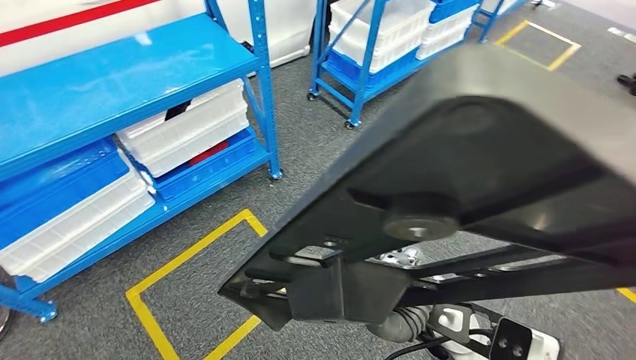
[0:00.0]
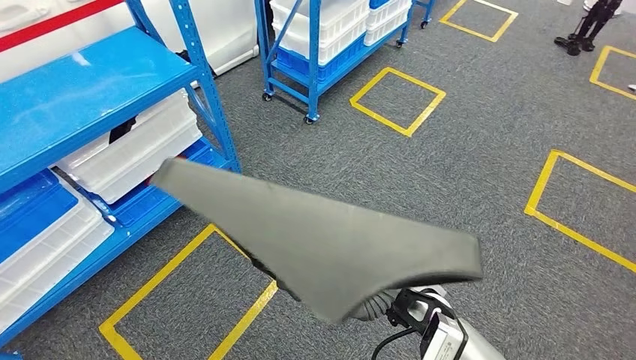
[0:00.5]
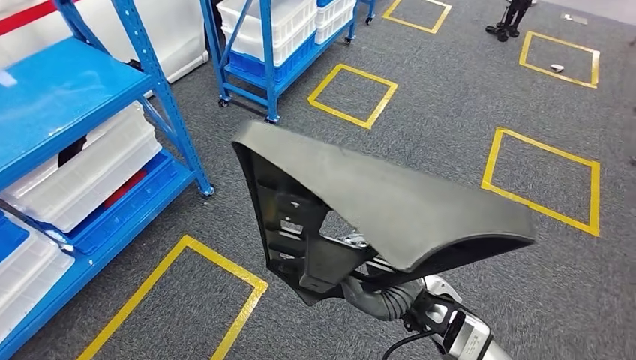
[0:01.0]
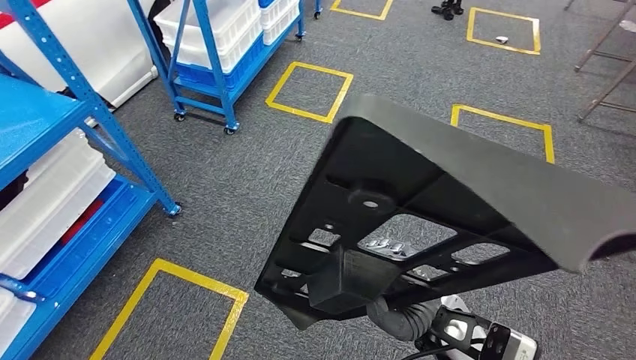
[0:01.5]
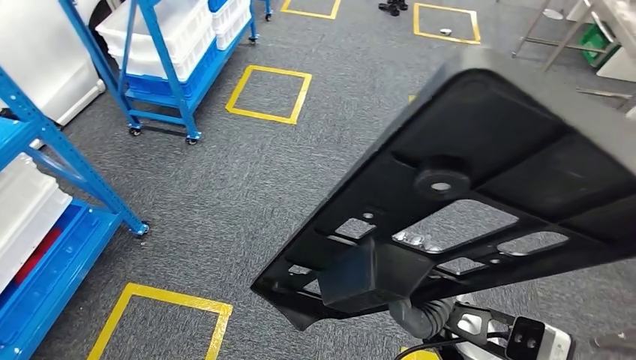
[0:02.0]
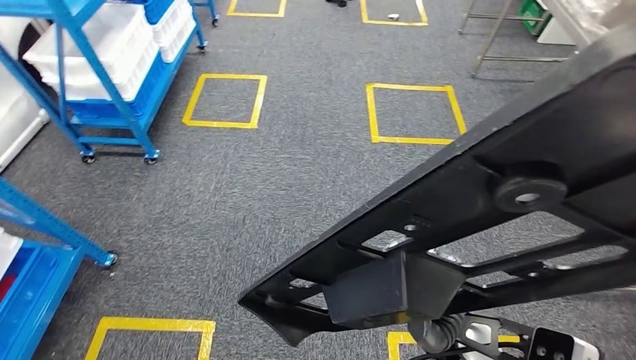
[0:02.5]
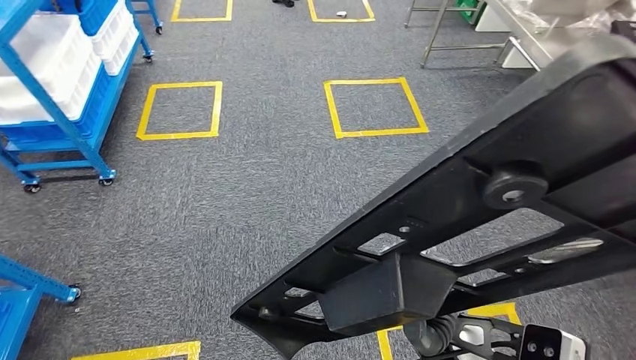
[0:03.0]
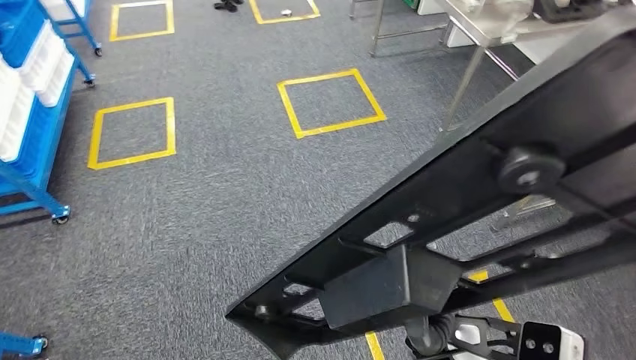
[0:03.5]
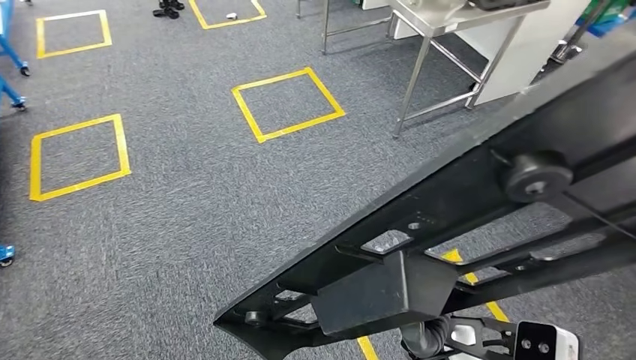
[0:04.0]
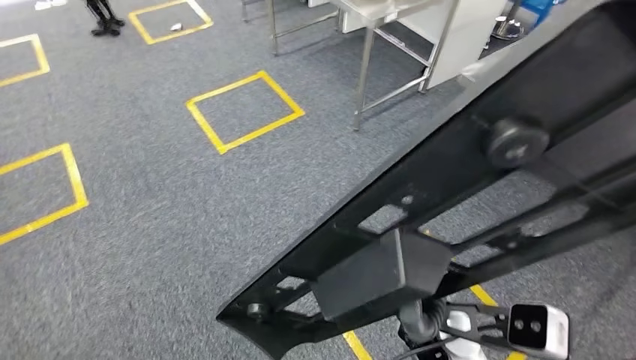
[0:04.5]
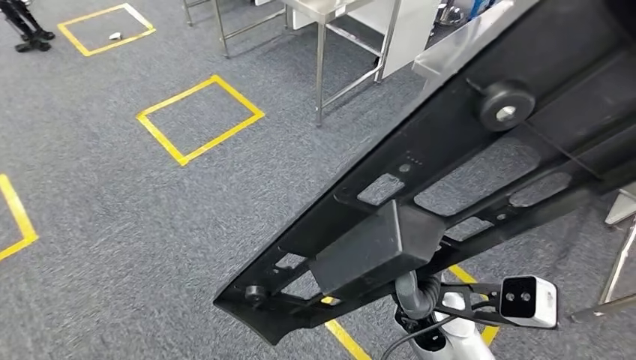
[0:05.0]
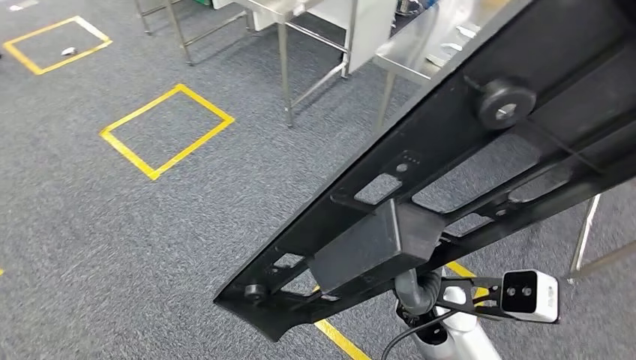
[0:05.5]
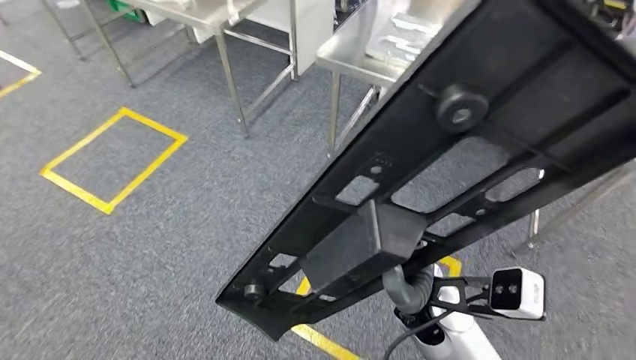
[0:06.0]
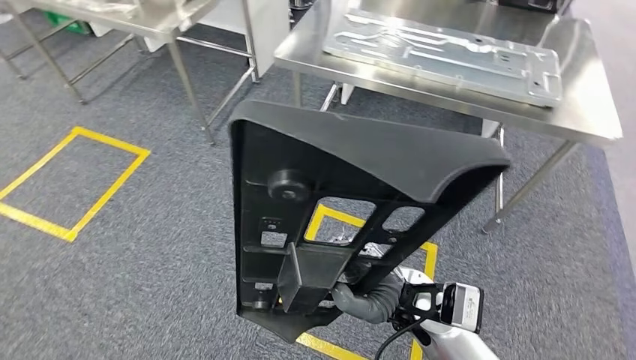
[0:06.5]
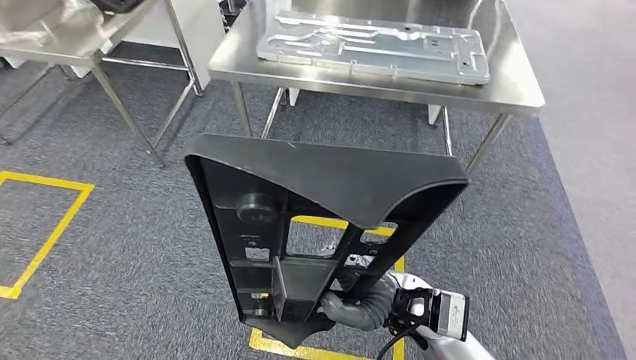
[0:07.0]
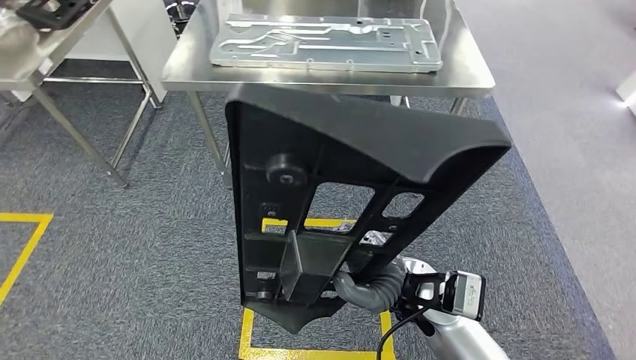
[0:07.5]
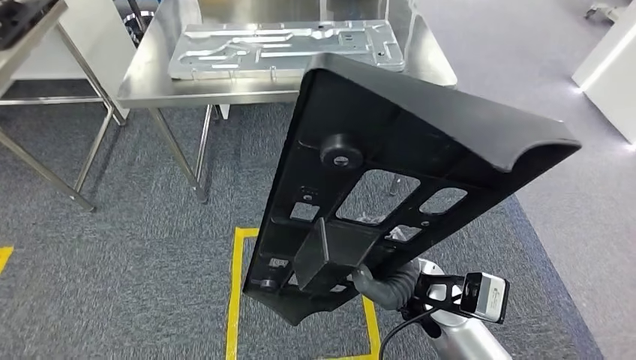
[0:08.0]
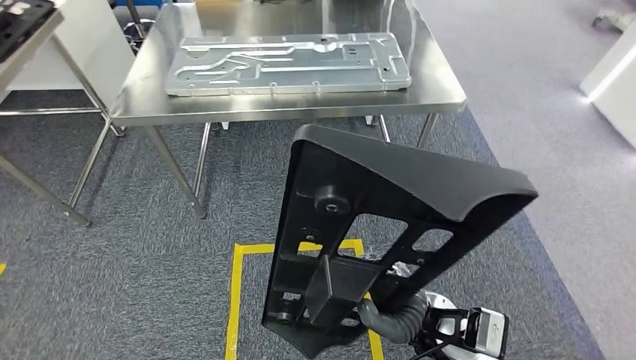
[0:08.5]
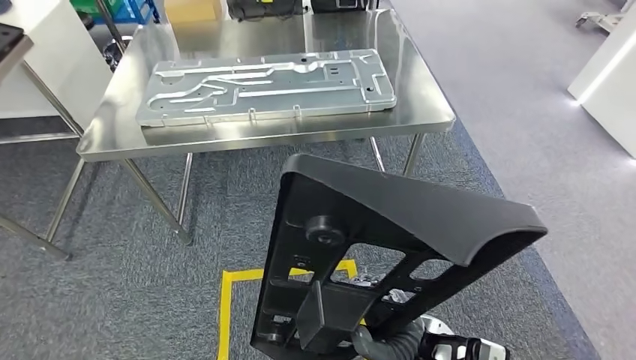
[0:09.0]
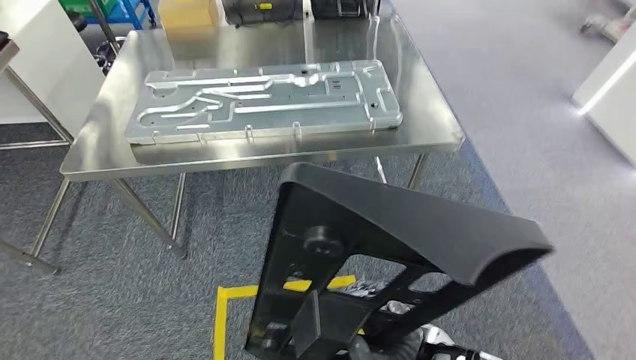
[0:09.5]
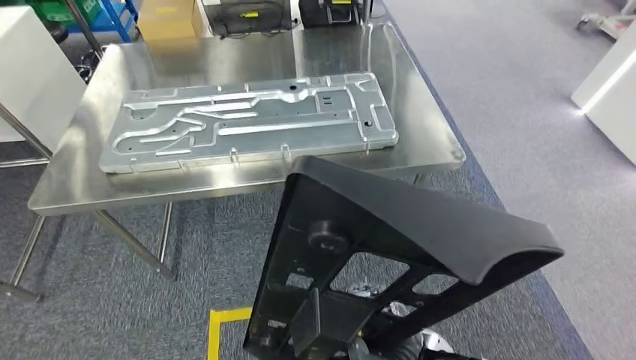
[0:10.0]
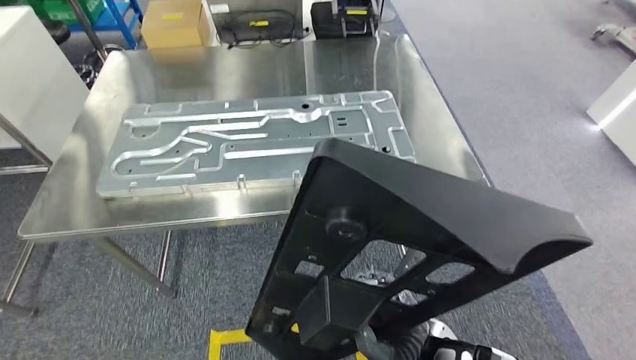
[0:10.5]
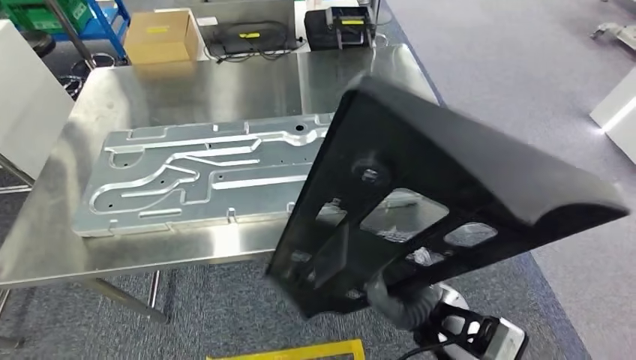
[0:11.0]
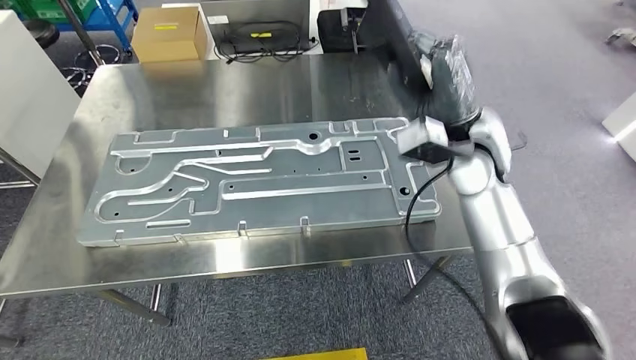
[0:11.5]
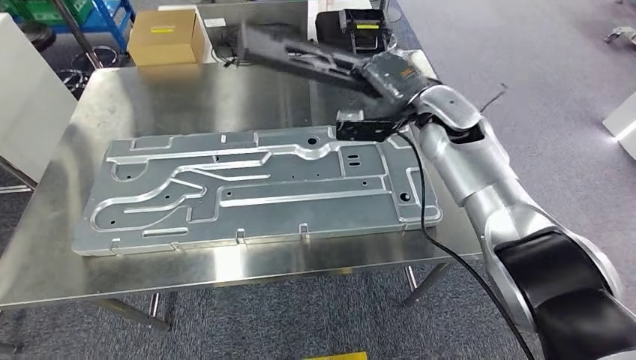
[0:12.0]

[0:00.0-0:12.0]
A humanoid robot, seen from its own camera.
Step, 0:00.0 to 0:11.5: Move the large material to the workbench.

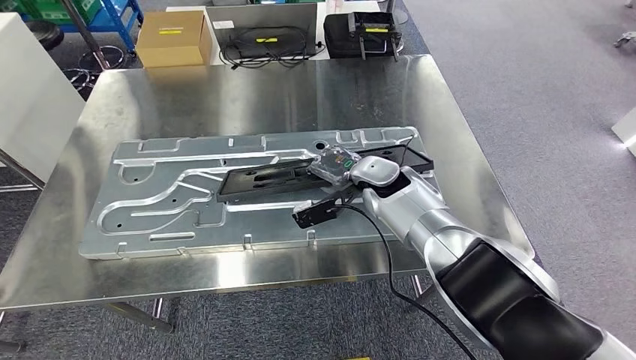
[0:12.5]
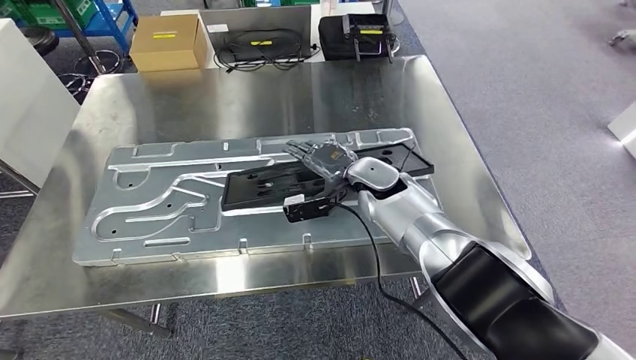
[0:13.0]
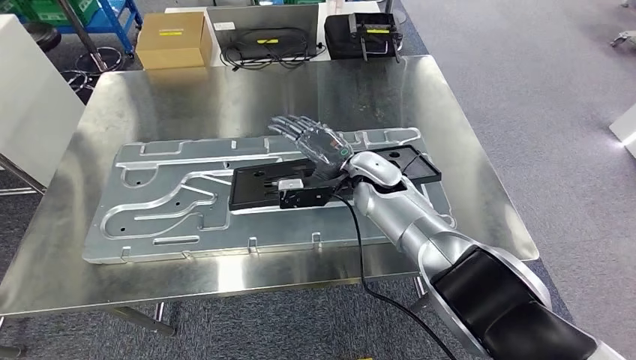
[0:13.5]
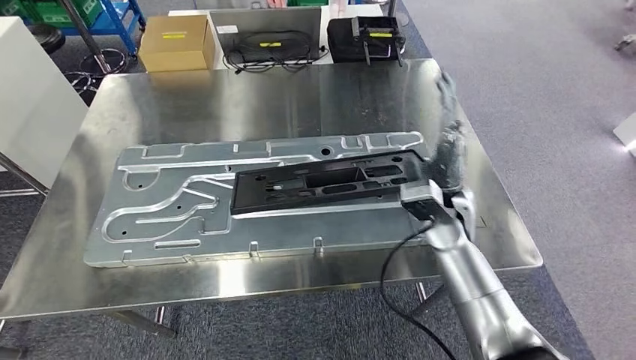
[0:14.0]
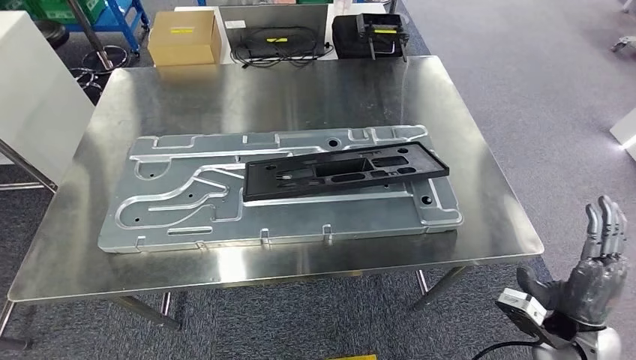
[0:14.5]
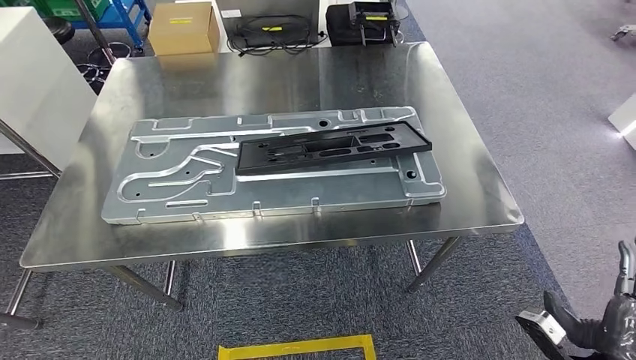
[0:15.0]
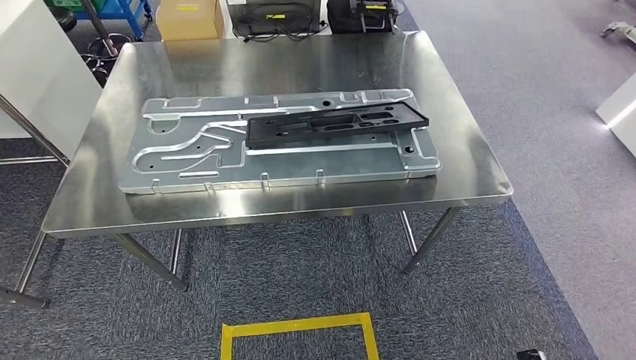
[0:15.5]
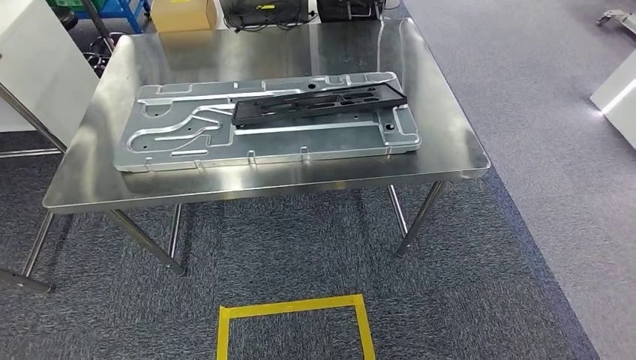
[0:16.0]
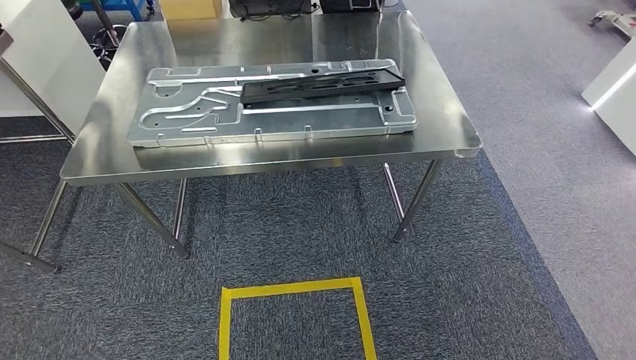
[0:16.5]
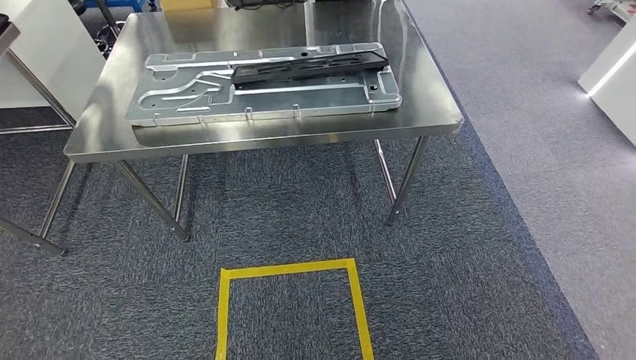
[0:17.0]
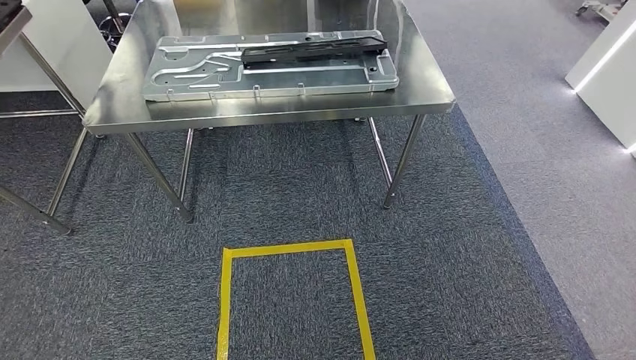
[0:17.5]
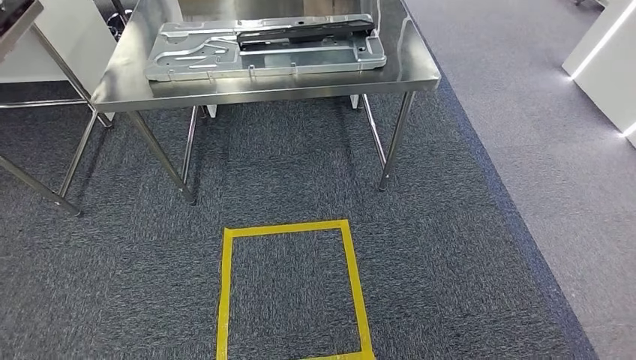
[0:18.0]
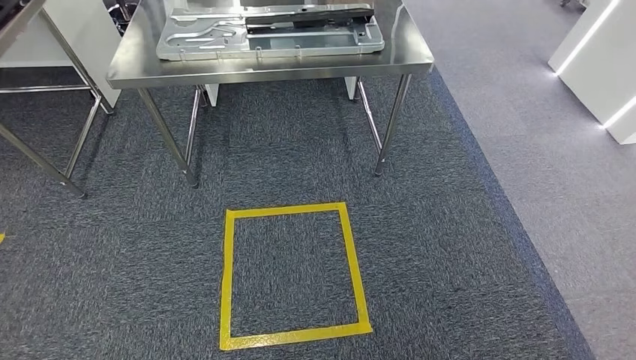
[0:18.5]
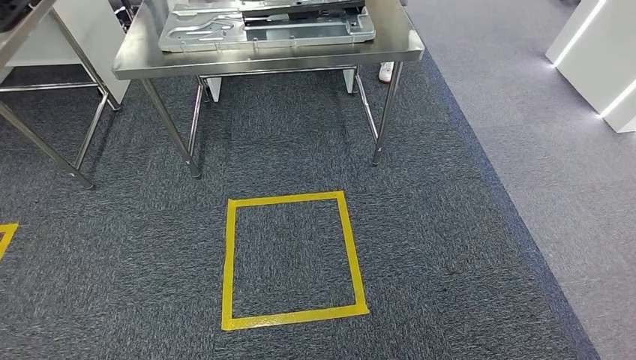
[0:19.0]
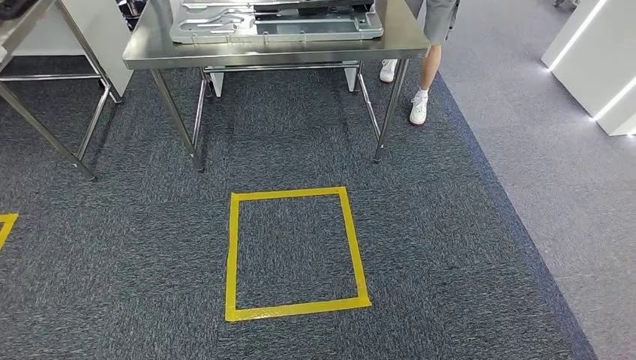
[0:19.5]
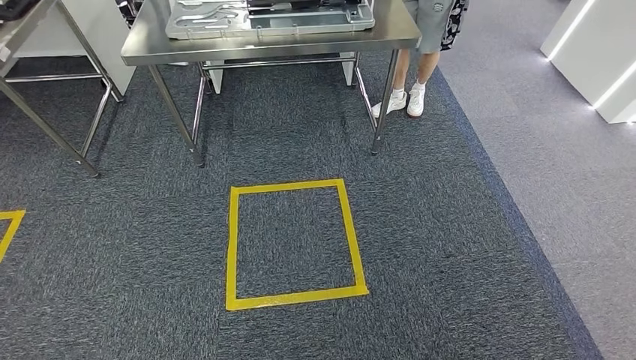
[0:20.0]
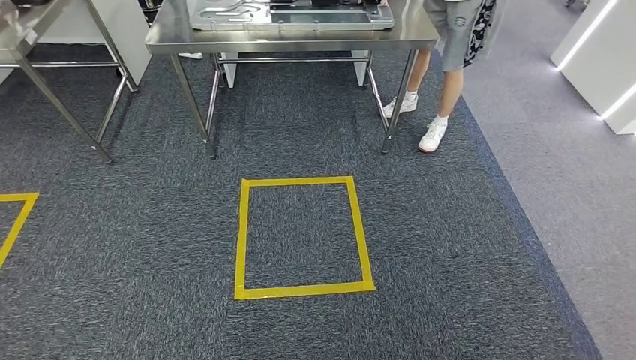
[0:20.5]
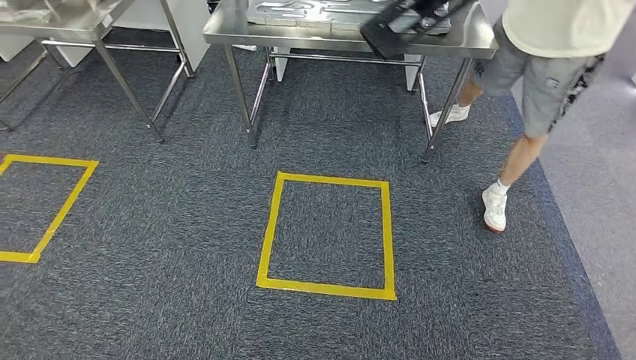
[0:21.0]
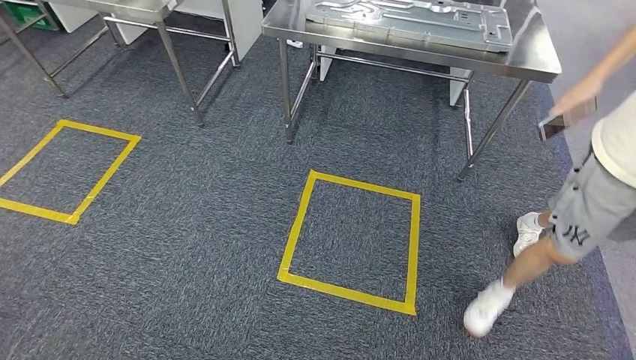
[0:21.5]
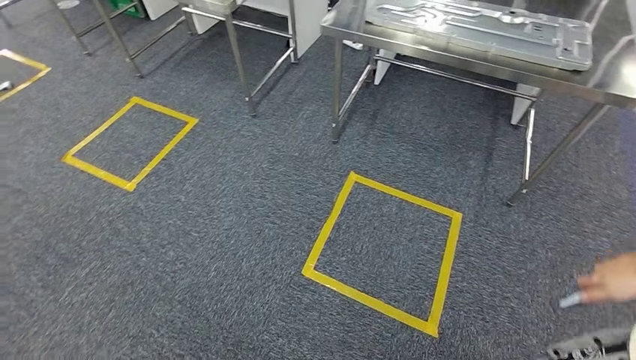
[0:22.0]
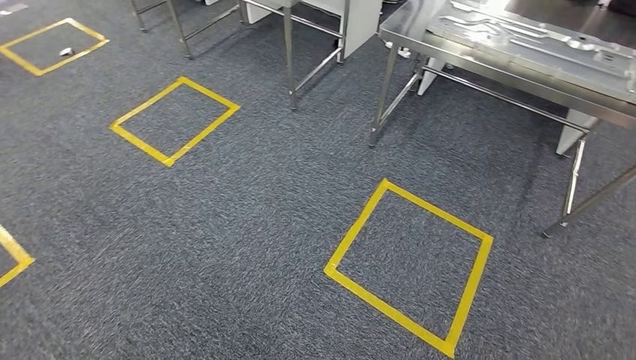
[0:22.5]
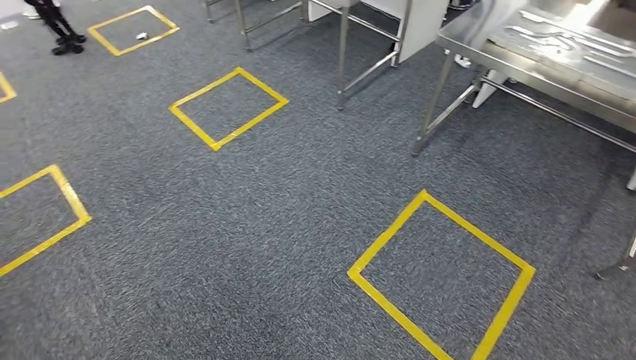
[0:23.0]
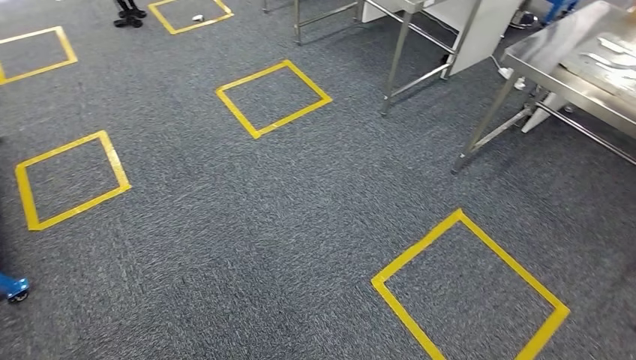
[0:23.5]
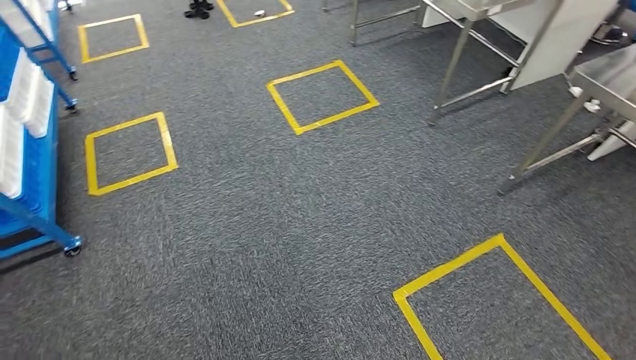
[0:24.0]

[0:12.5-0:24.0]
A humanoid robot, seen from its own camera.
Step, 0:13.5 to 0:16.0: Insert the large material into the corresponding slot on the workbench.
